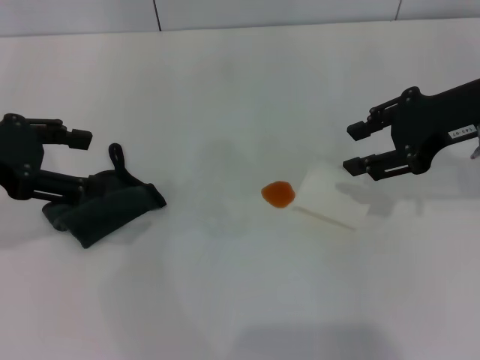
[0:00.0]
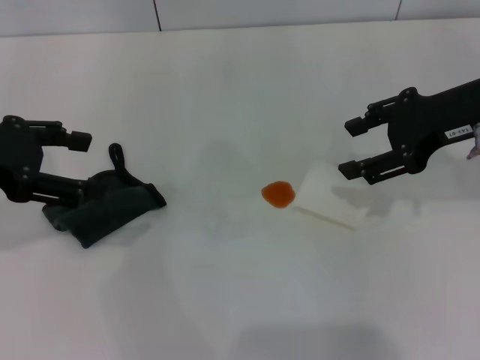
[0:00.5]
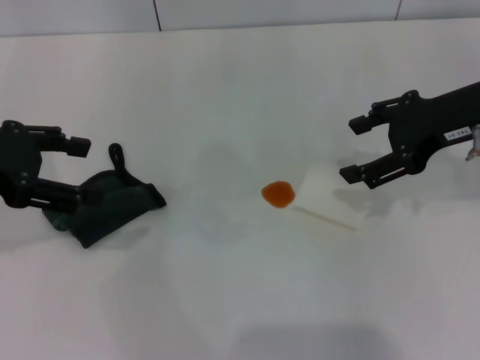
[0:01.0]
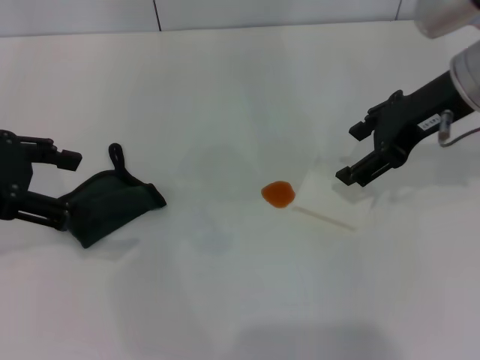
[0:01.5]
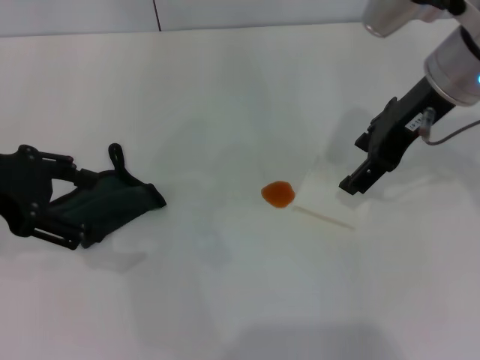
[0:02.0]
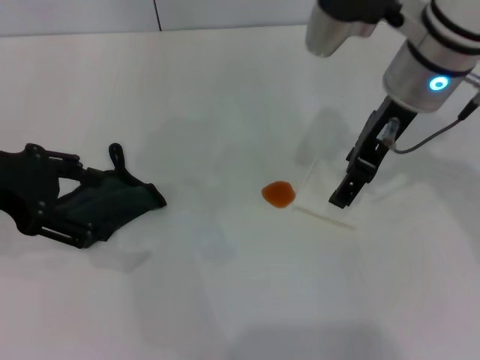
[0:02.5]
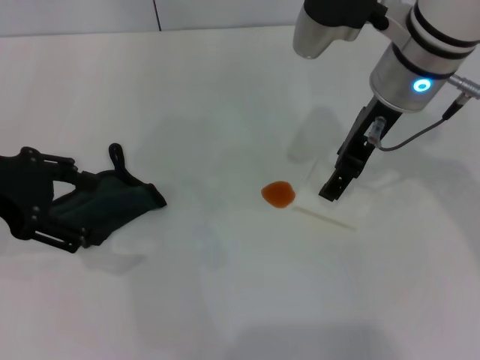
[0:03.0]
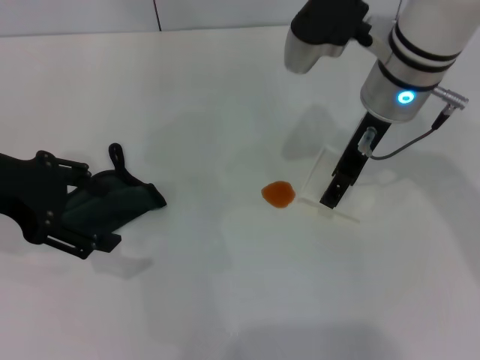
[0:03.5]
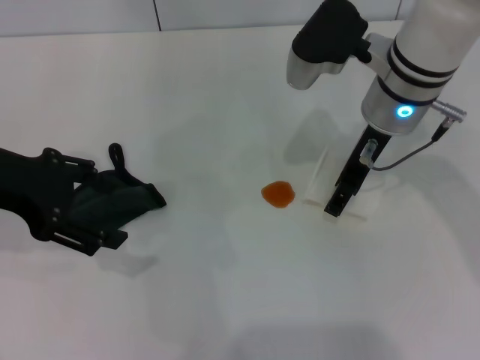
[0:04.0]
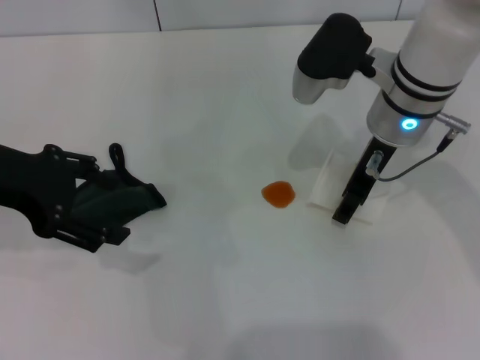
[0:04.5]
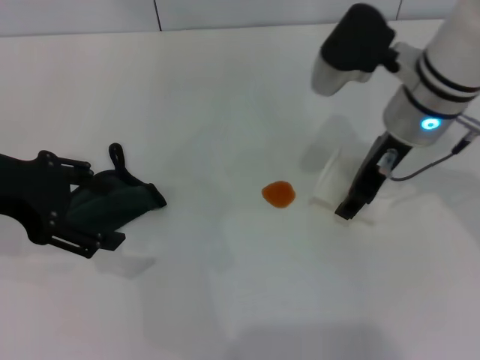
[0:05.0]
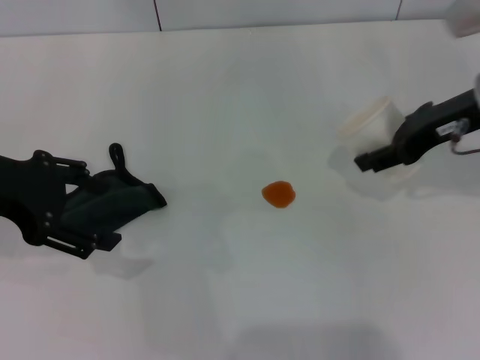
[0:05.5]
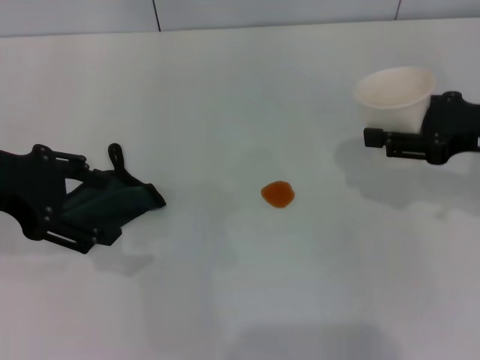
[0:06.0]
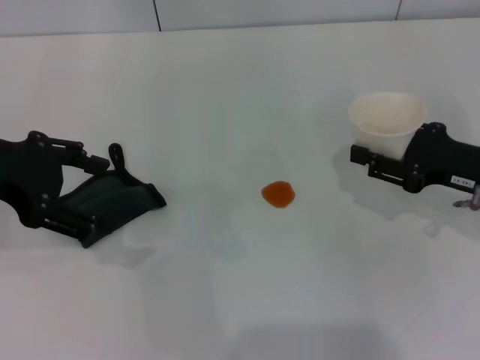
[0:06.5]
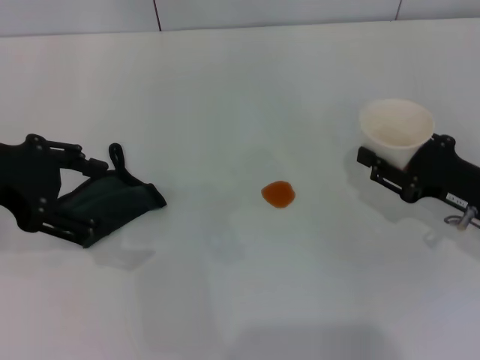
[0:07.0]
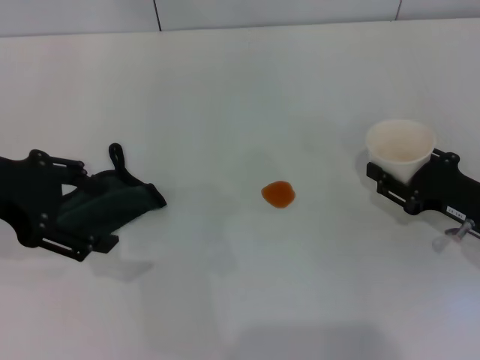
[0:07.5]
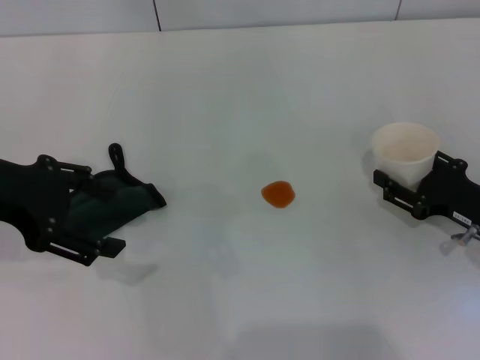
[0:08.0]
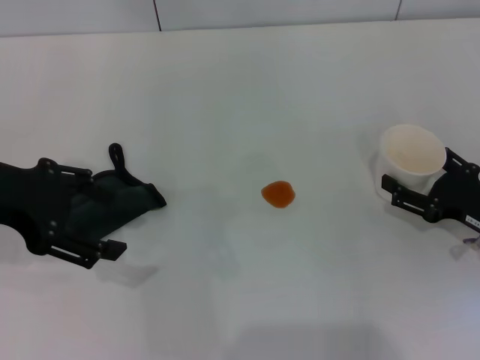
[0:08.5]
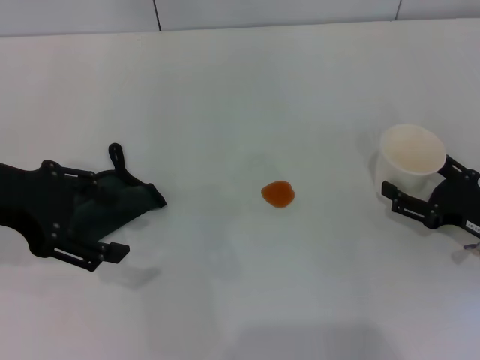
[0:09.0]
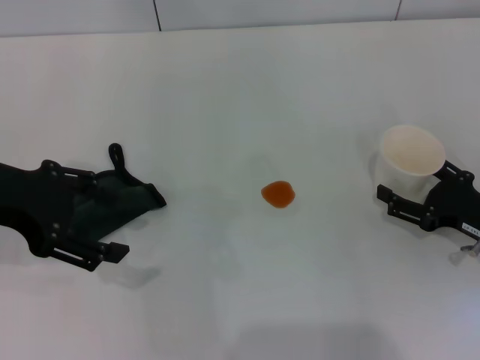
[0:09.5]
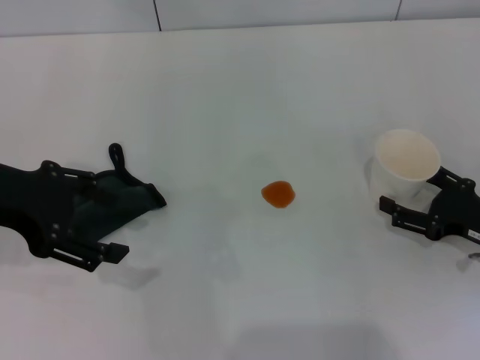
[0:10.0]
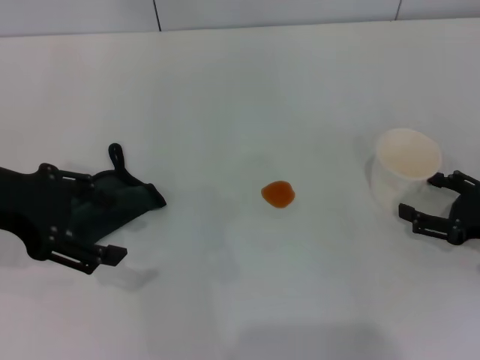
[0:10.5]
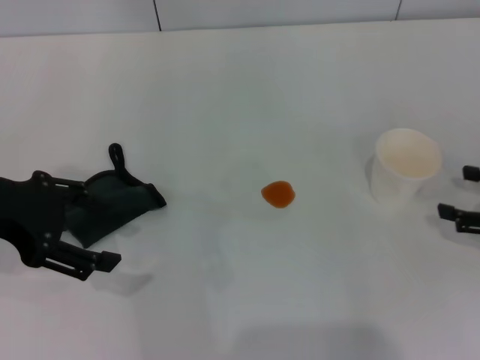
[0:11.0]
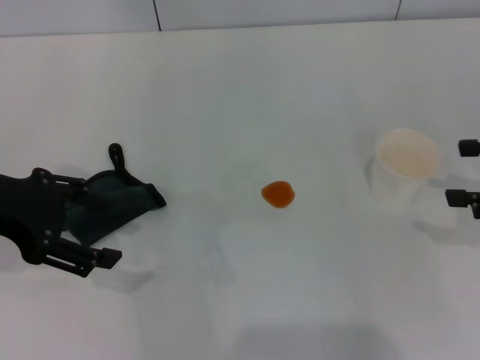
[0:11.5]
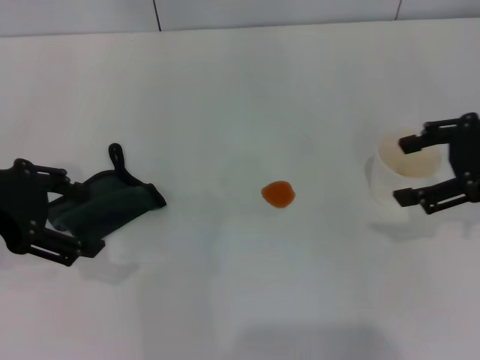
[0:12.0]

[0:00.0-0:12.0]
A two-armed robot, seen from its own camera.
Step, 0:00.0 to 0:04.5: Grasp the paper cup with the right gripper.
Step, 0:05.0 to 0:10.0: Stand the paper cup upright with the right gripper.
0:00.0 to 0:02.0: The right gripper travels to the left by approximately 5 cm, and opens.
0:02.0 to 0:04.0: The right gripper goes approximately 10 cm downward and to the left.
0:04.0 to 0:06.0: The right gripper moves to the right and backward, approximately 20 cm, and closes up.
0:06.0 to 0:08.0: The right gripper travels downward by about 15 cm.
0:08.0 to 0:10.0: The right gripper opens its fingers.
0:10.0 to 0:12.0: The right gripper heads upward, covering roughly 15 cm.

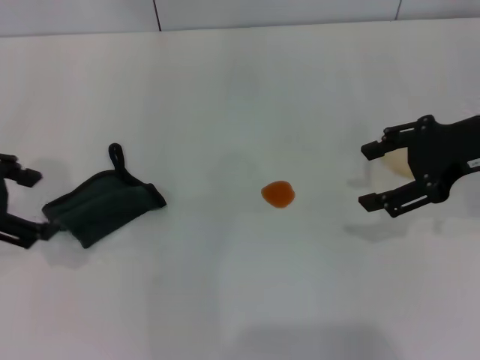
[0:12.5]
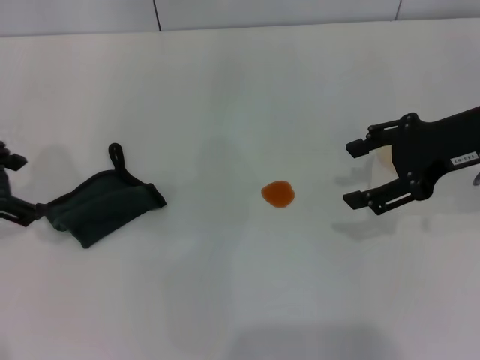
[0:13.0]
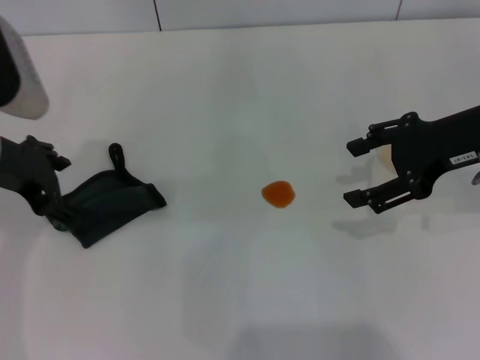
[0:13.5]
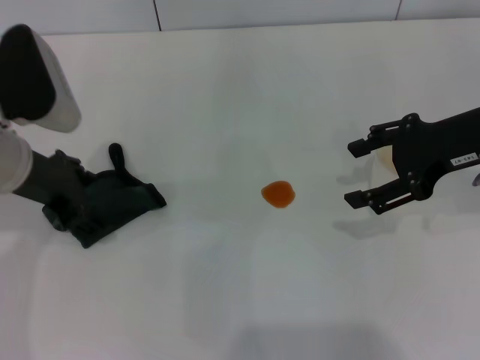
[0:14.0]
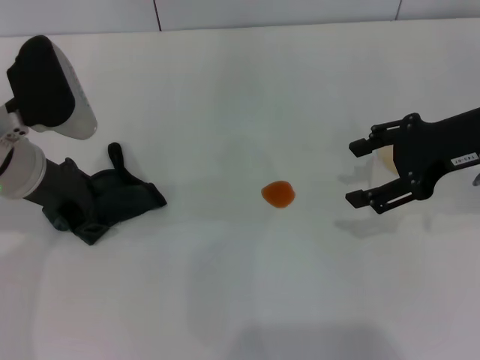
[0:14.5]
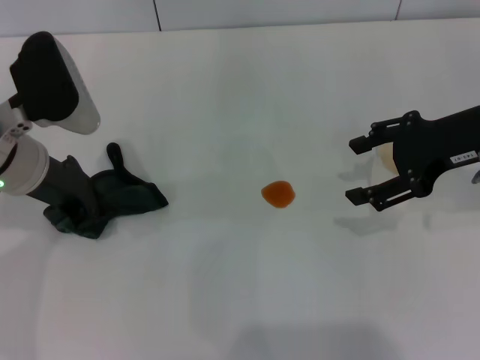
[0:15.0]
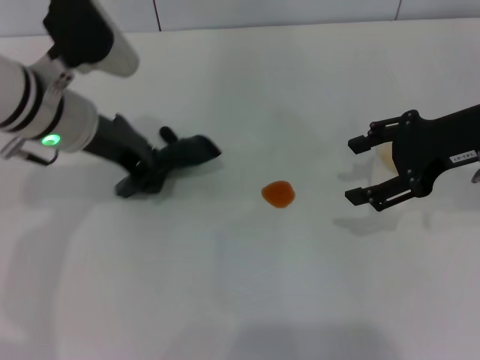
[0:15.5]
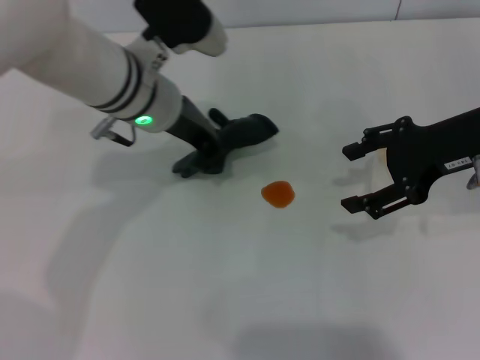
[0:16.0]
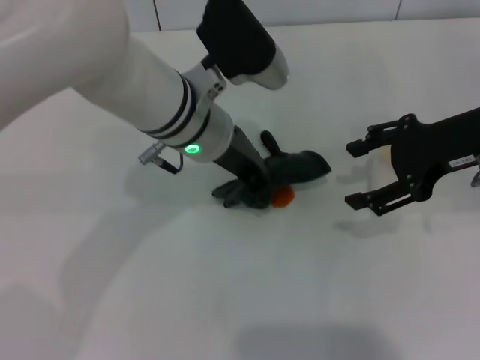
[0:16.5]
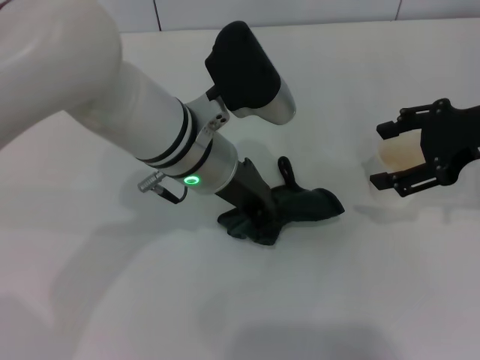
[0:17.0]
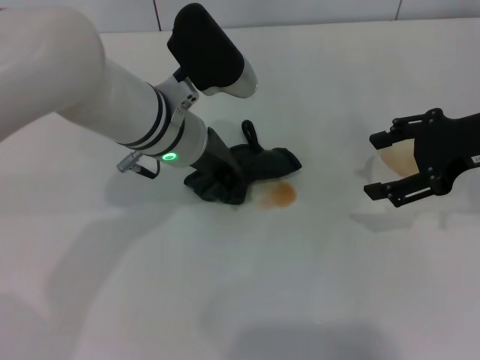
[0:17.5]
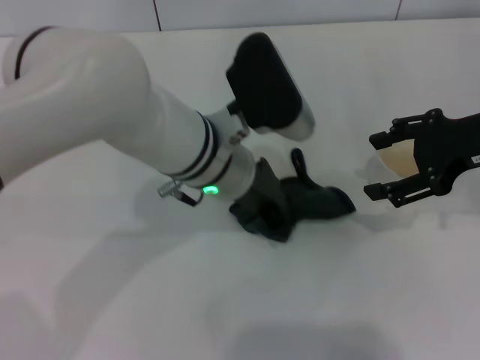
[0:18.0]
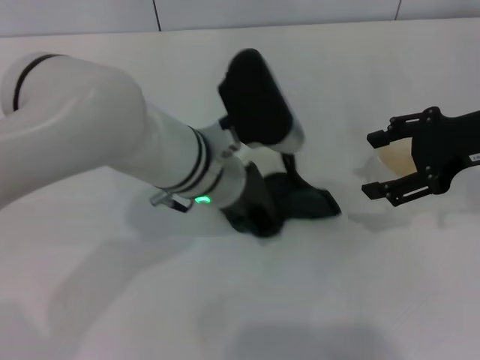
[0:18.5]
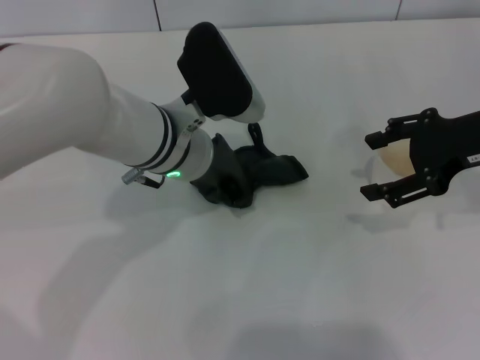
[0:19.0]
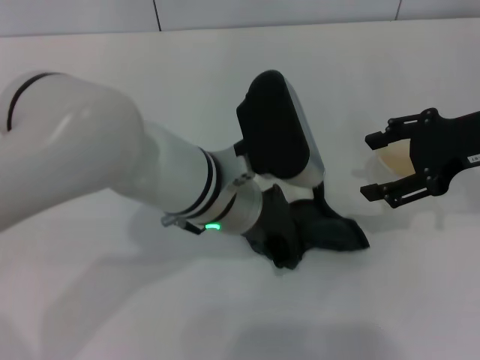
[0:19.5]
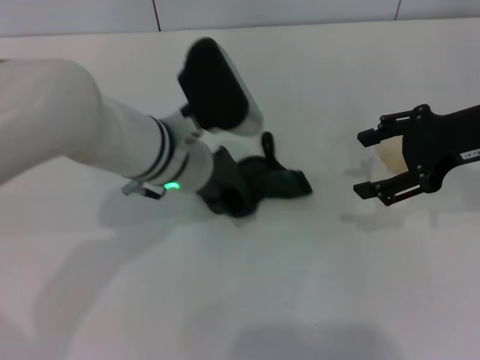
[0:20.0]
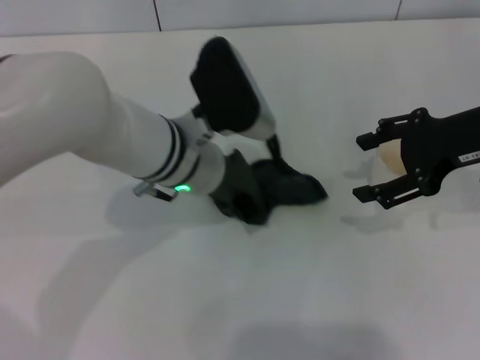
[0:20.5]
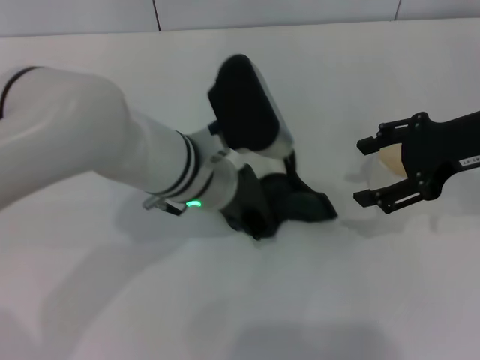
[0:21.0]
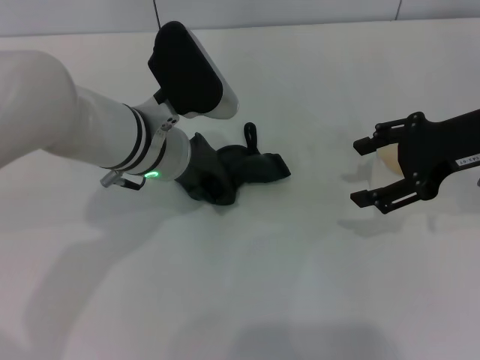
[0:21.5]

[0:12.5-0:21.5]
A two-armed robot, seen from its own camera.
Step, 0:12.5 to 0:14.5: Grasp the rag with the left gripper.
0:12.5 to 0:14.5: The left gripper shifts approximately 10 cm downward and to the right.
0:14.5 to 0:17.0: The left gripper is displaced to the right by roughly 15 cm, and closes its fingers.
0:19.5 to 0:21.5: The left gripper is displaced to the left and forward by about 10 cm.

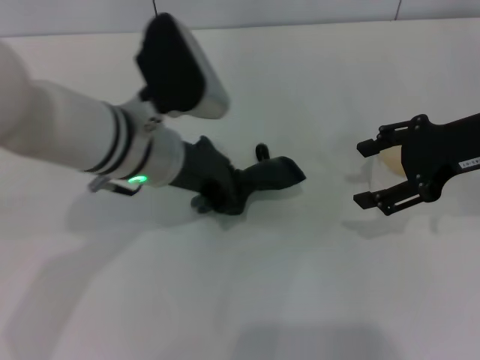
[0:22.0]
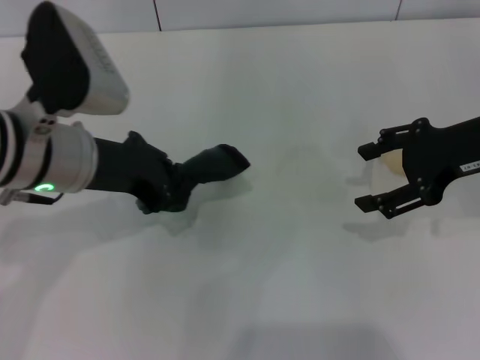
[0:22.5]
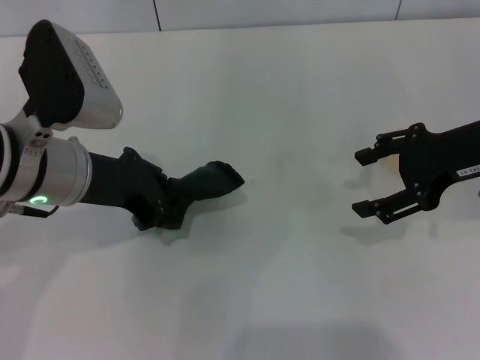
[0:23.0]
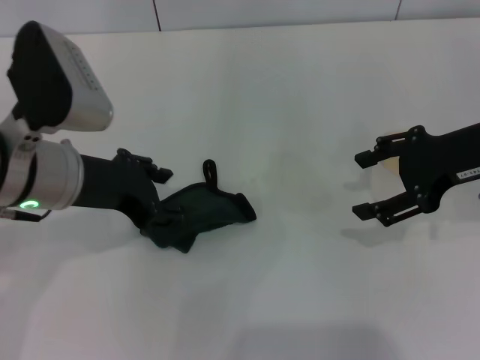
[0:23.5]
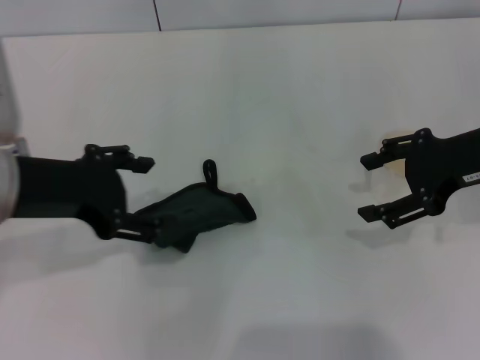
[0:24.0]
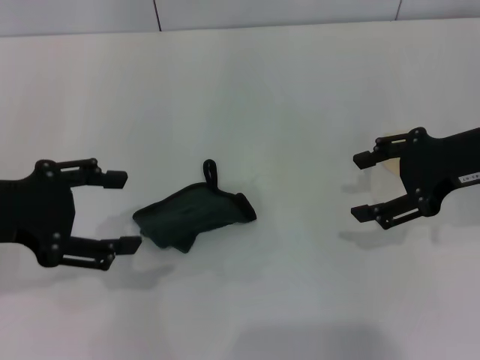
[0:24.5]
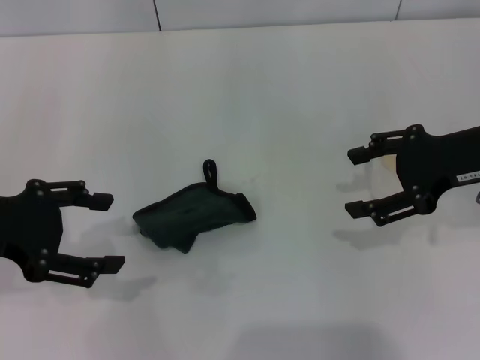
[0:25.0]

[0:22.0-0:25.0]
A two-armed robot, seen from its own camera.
Step, 0:23.0 to 0:23.5: Place the rag on the table with the left gripper.
0:22.0 to 0:23.5: The left gripper shifts about 10 cm to the left, and opens.
0:23.5 to 0:25.0: The left gripper travels to the left by approximately 10 cm, and opens.

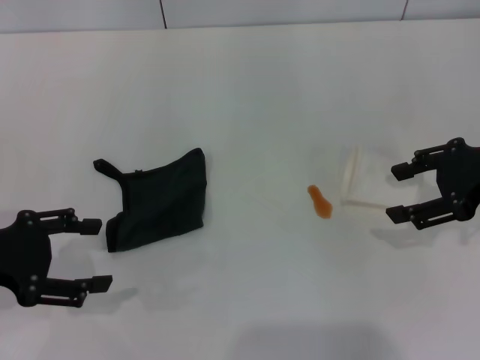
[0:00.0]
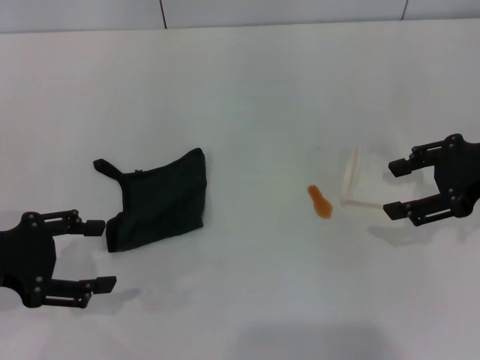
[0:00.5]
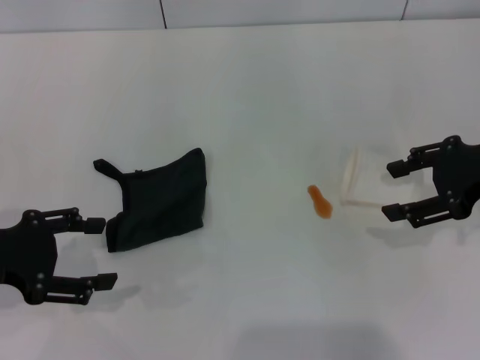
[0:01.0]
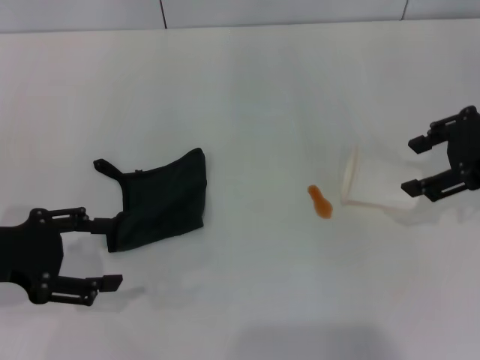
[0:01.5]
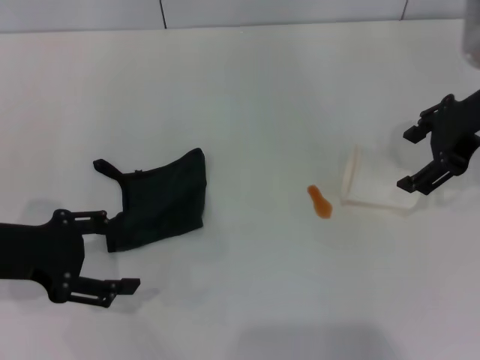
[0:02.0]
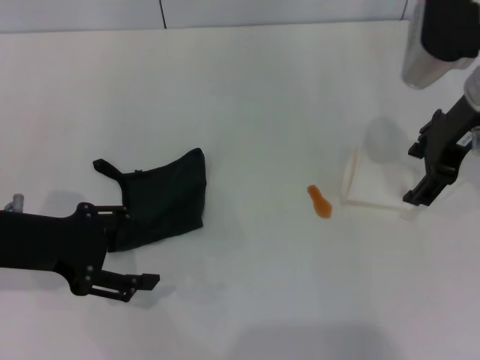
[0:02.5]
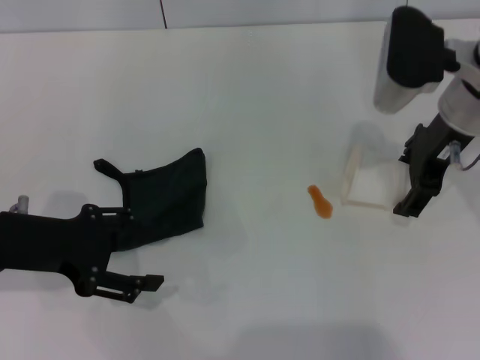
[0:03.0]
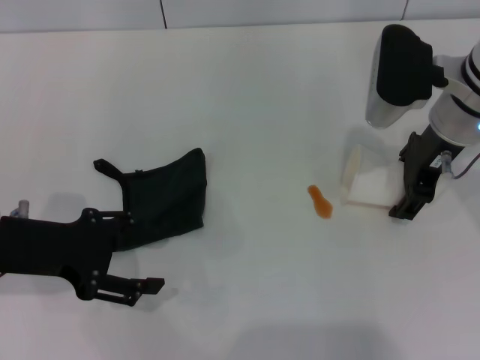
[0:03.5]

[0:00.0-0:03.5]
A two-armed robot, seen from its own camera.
Step, 0:00.0 to 0:03.0: Grasp the paper cup with the right gripper.
0:00.0 to 0:02.0: The right gripper goes roughly 5 cm to the left, and opens.
0:02.0 to 0:03.5: The right gripper shifts roughly 10 cm downward and to the left.
